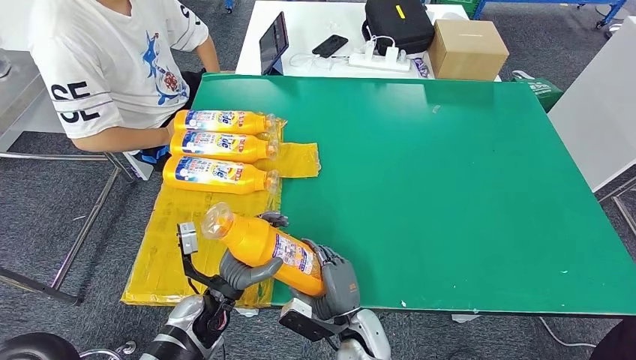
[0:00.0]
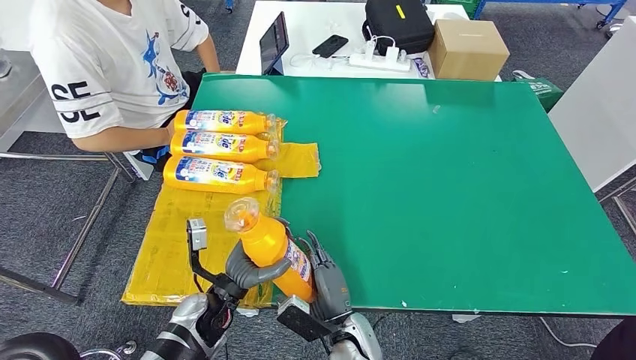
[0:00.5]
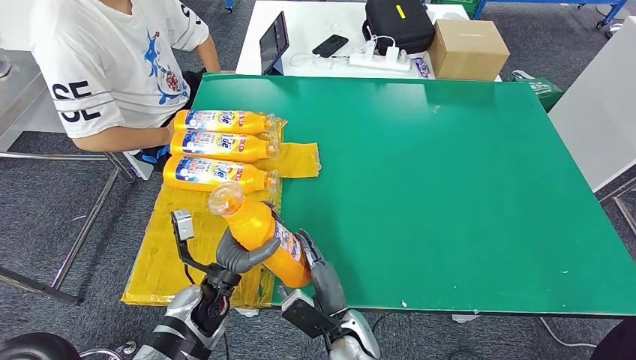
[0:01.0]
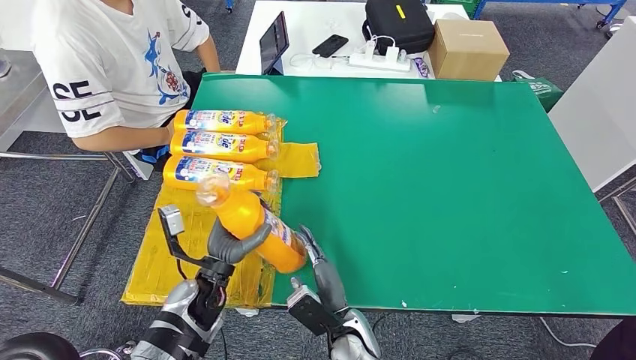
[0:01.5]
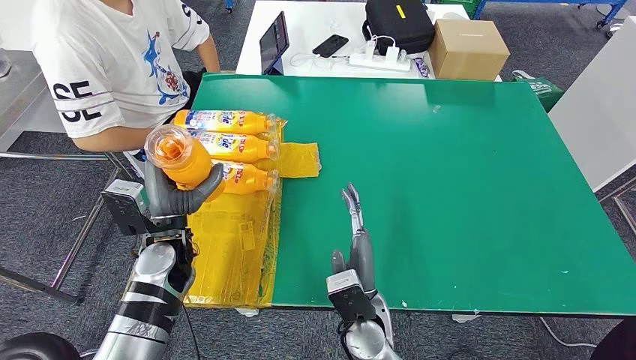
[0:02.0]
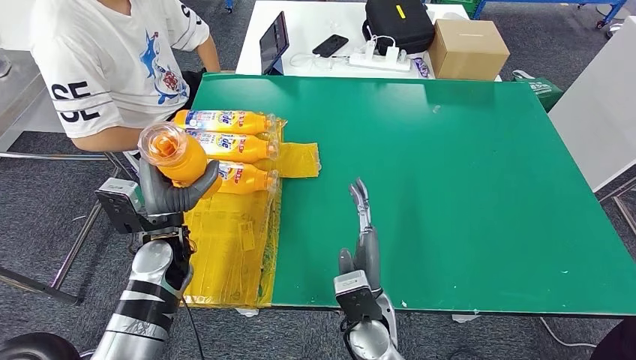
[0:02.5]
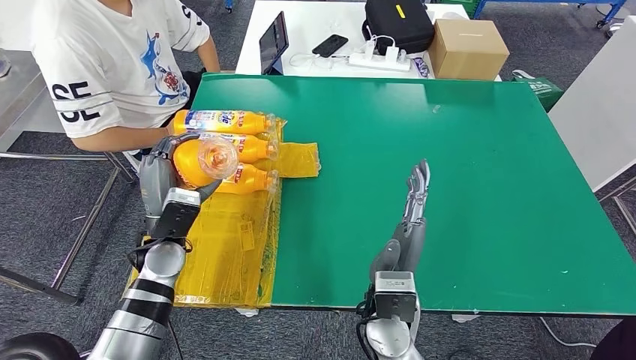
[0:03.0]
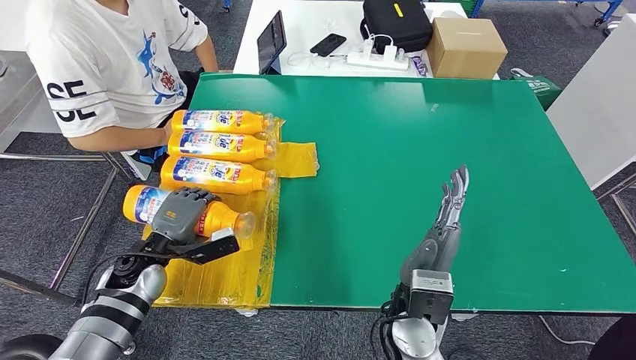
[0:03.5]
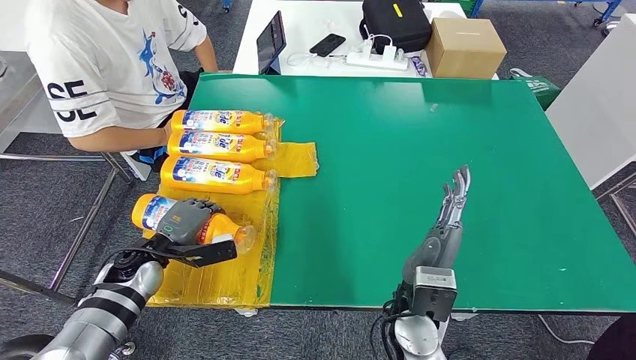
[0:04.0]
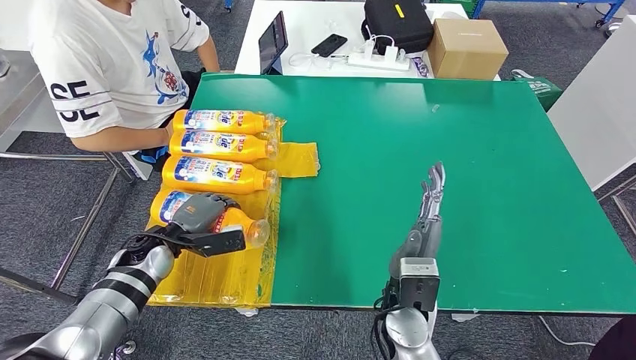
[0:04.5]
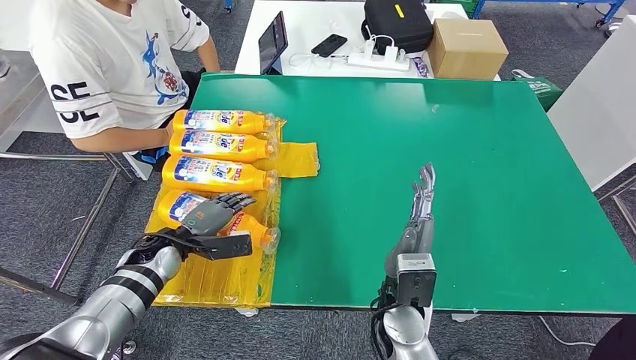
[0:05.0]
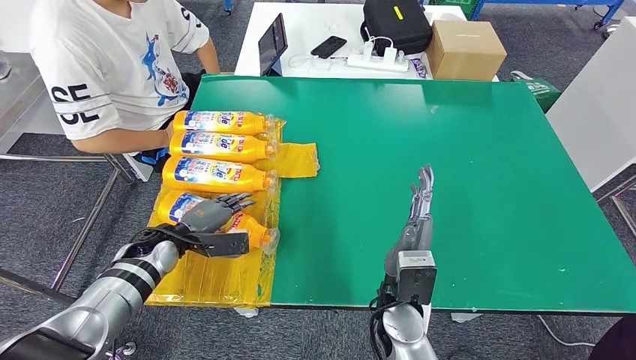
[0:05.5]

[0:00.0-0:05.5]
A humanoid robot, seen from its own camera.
Step, 0:00.0 to 0:05.0: Flip the bottle to face forward.
0:00.0 to 0:02.0: The right hand shifts about 10 cm upward. The left hand heads upward, forward and to the left, covering roughly 15 cm.
